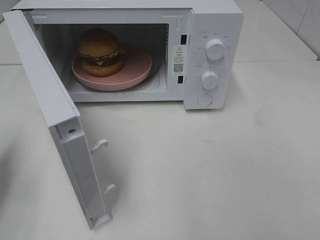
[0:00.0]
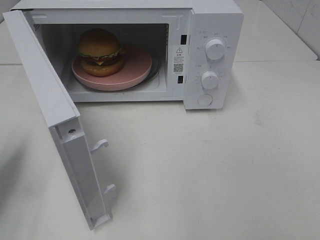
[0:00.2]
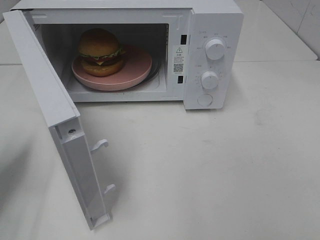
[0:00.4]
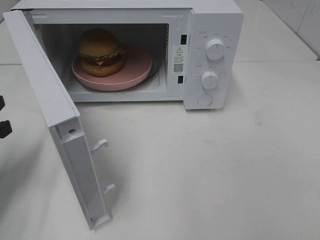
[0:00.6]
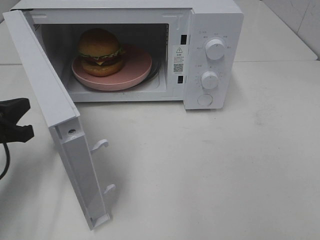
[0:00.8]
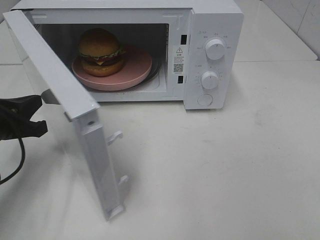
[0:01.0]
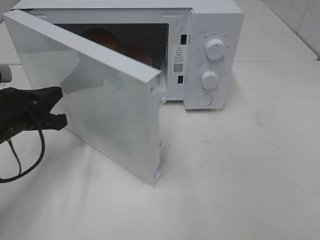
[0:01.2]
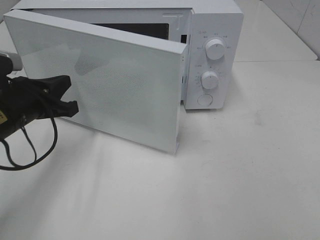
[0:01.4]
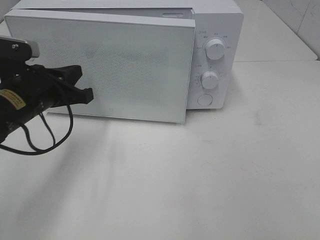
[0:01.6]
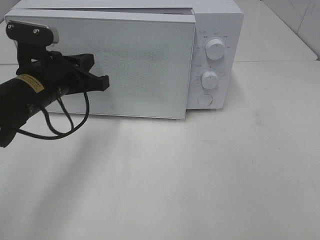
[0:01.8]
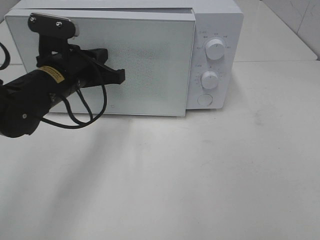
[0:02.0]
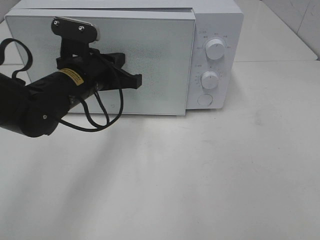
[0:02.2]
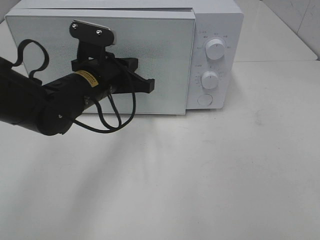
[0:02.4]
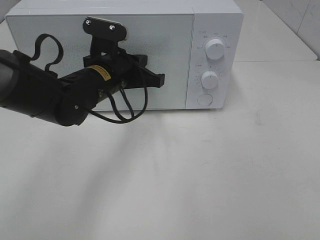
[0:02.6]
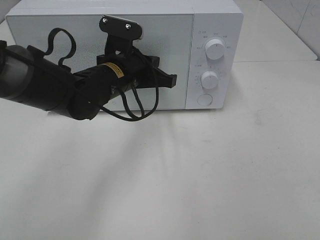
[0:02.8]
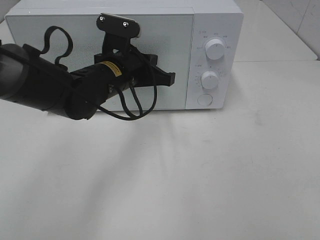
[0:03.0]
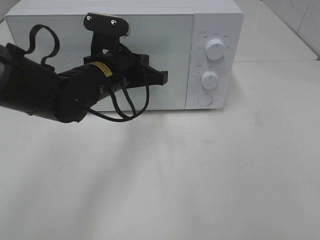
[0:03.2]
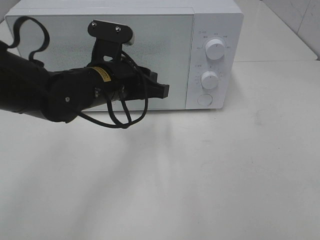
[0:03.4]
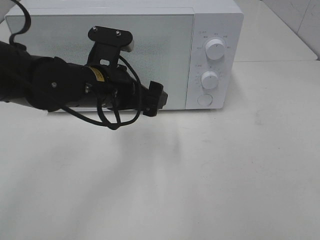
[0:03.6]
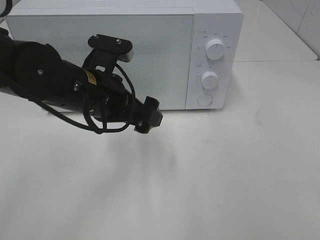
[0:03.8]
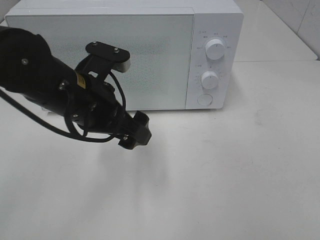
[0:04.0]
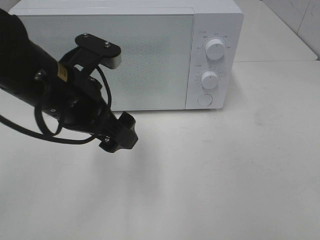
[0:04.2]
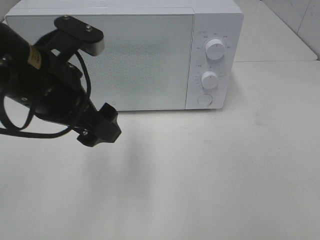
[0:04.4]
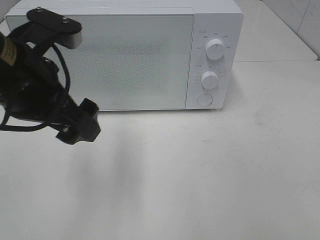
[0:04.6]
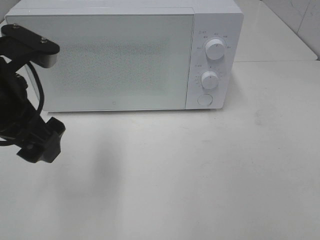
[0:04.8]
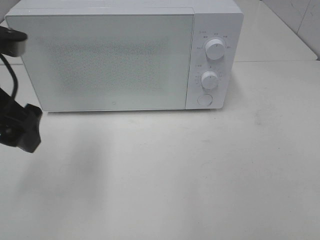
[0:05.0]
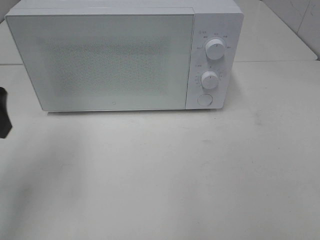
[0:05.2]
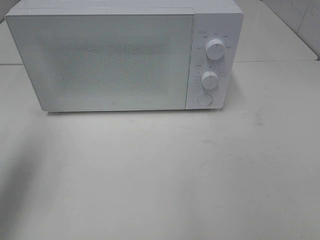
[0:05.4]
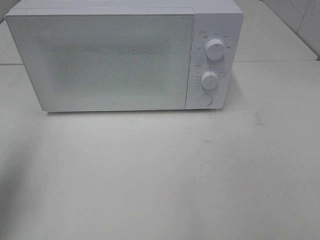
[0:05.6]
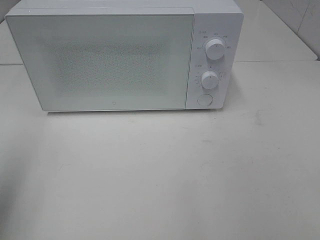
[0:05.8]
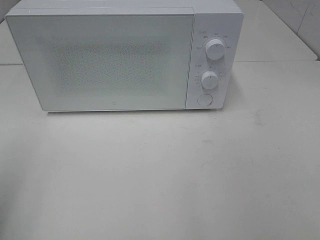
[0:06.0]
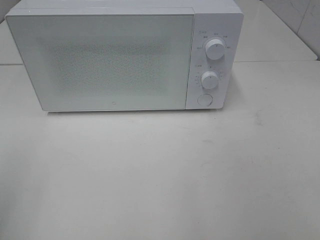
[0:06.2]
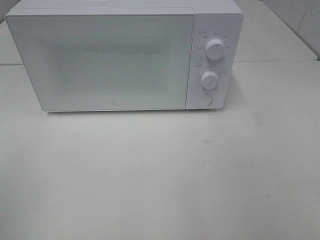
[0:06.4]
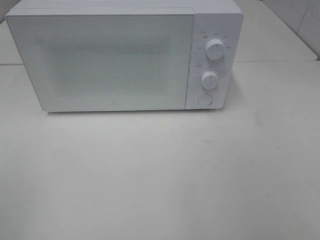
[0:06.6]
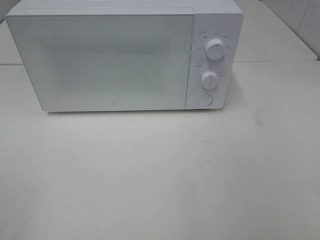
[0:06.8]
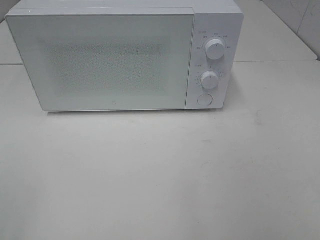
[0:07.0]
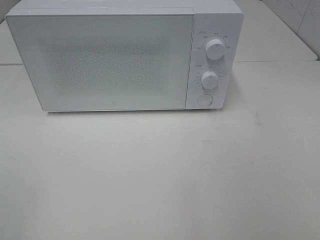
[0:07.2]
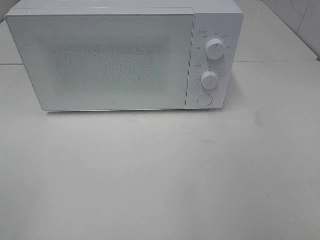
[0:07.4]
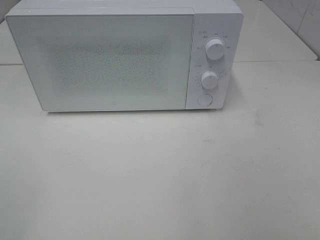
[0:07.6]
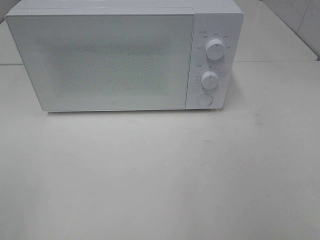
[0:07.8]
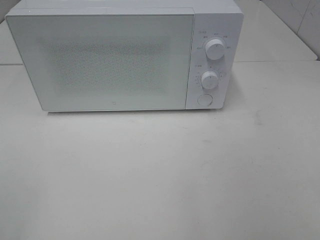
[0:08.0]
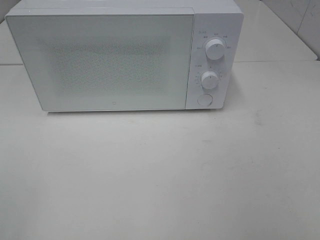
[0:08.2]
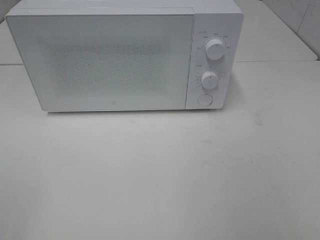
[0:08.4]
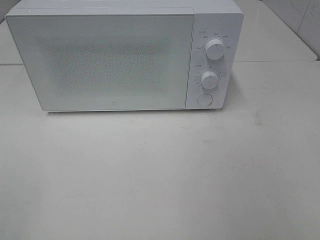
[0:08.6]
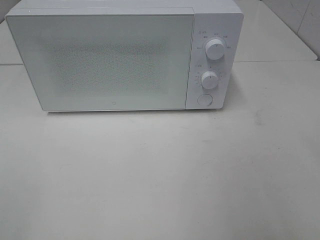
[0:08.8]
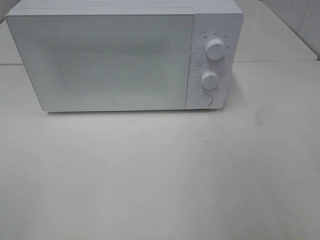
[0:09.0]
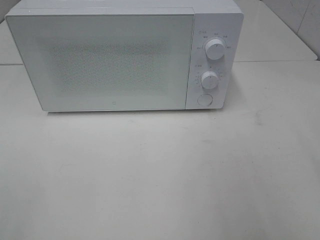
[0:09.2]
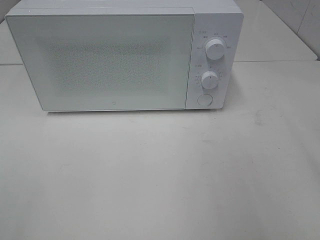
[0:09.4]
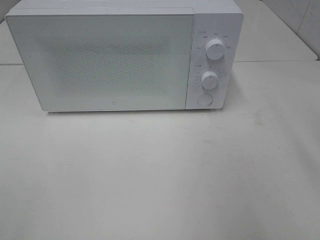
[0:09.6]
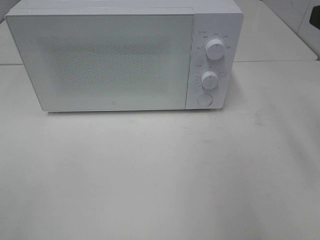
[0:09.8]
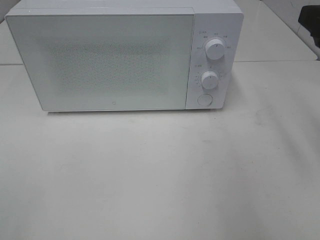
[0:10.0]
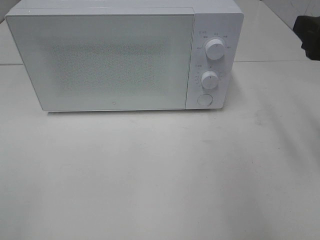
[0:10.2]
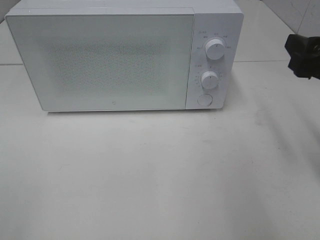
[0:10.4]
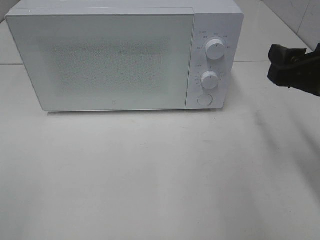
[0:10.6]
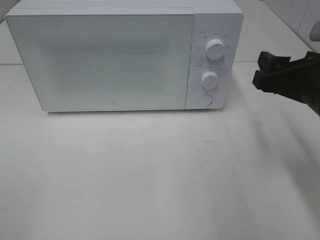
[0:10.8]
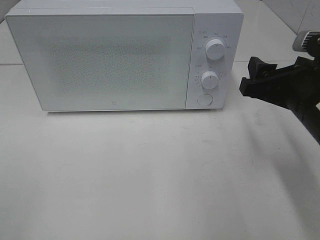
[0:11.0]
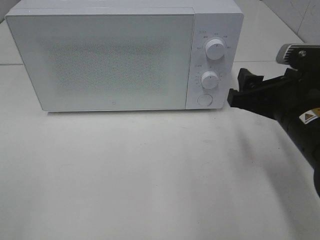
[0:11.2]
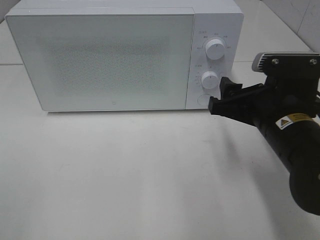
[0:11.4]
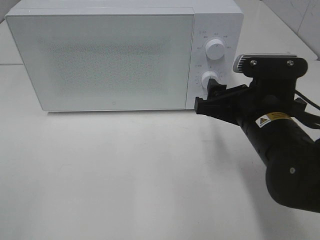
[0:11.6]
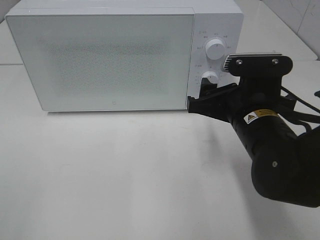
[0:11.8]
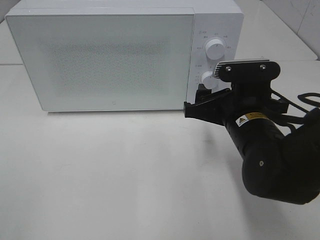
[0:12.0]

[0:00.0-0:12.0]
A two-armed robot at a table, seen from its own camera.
Task of the whole recording: Heat the burger.
Step, 0:00.0 to 0:04.0: Left hand: close the microwave door.
0:00.0 to 0:01.6: The left gripper is displaced to the right and forward by some 15 cm.
0:01.6 to 0:03.0: The left gripper goes roughly 15 cm to the right and forward.
0:03.0 to 0:04.4: The left gripper moves backward, upward and to the left, approximately 15 cm, and opens its fingers.
0:04.4 to 0:06.0: The left gripper moves to the left and backward, roughly 20 cm.
0:09.0 to 0:10.4: The right gripper heads forward and downward, covering some 15 cm.
0:10.4 to 0:12.0: The right gripper shifts about 15 cm to the left and downward.

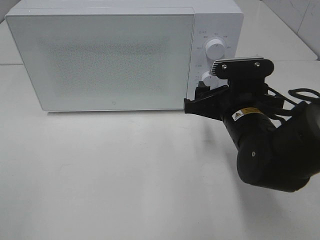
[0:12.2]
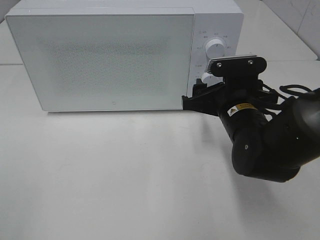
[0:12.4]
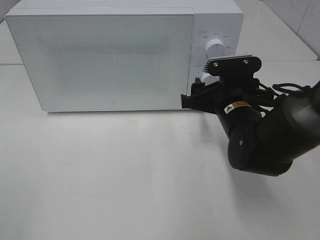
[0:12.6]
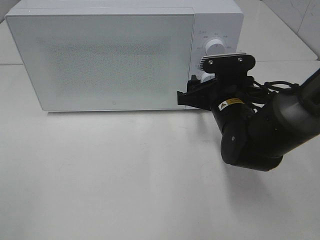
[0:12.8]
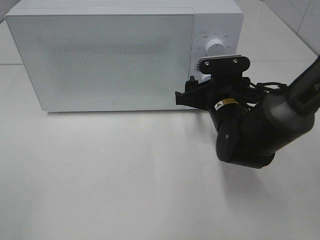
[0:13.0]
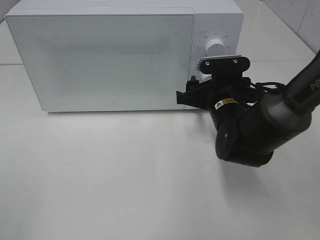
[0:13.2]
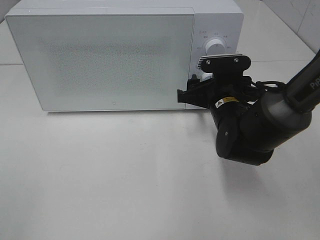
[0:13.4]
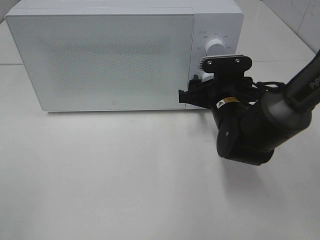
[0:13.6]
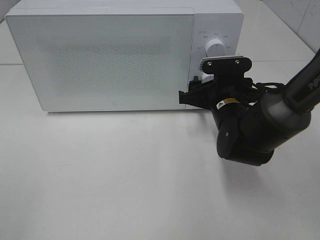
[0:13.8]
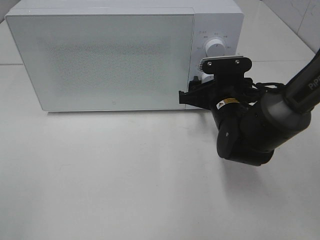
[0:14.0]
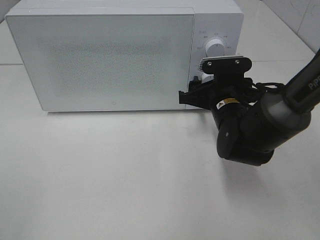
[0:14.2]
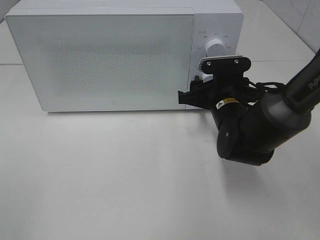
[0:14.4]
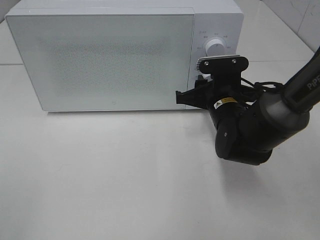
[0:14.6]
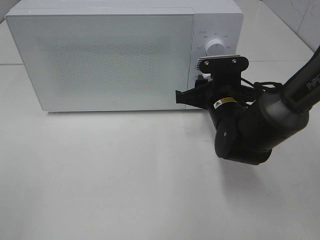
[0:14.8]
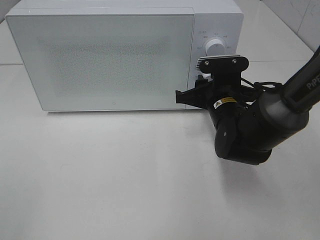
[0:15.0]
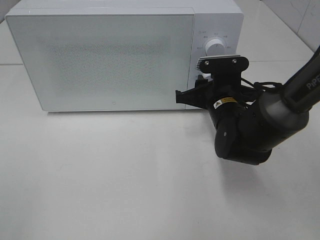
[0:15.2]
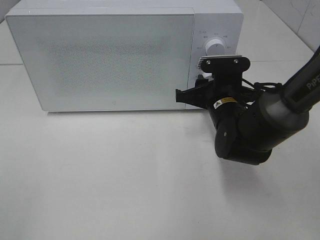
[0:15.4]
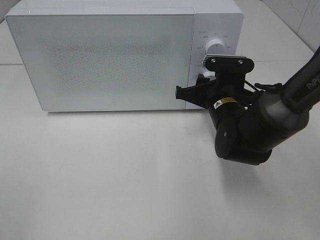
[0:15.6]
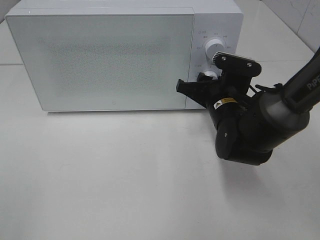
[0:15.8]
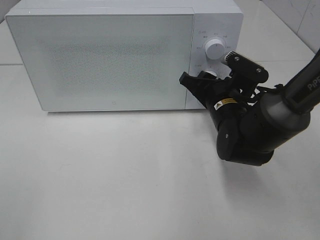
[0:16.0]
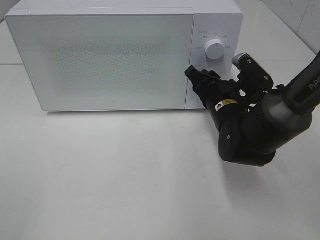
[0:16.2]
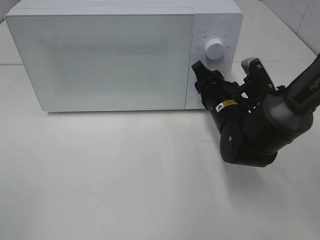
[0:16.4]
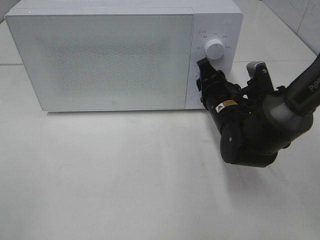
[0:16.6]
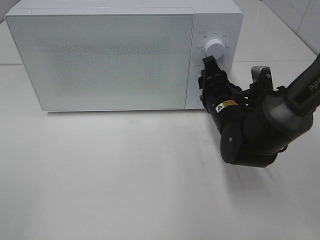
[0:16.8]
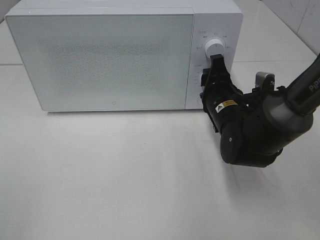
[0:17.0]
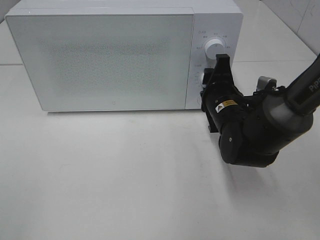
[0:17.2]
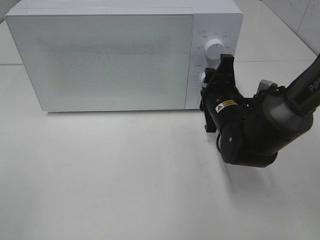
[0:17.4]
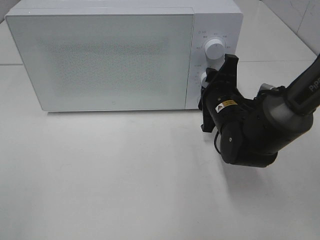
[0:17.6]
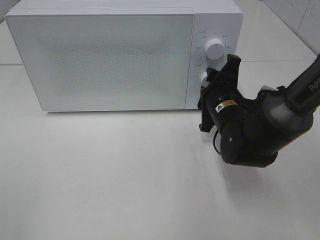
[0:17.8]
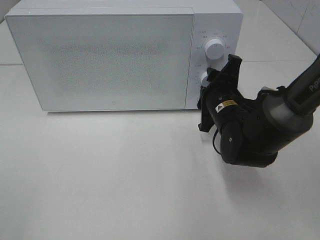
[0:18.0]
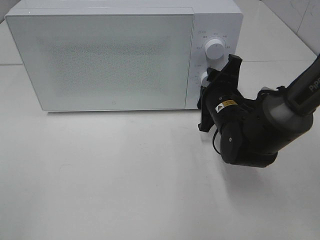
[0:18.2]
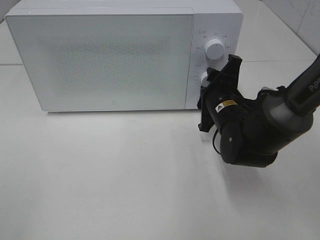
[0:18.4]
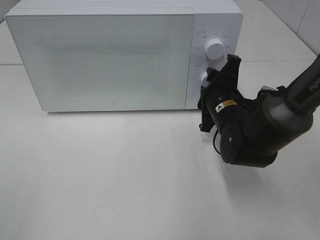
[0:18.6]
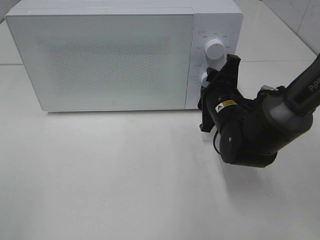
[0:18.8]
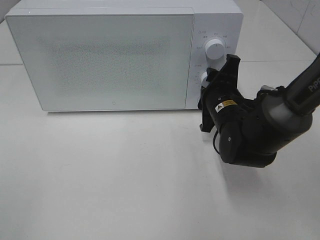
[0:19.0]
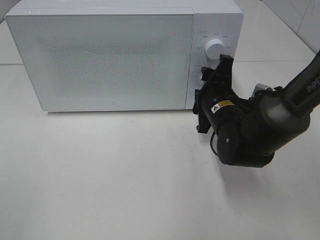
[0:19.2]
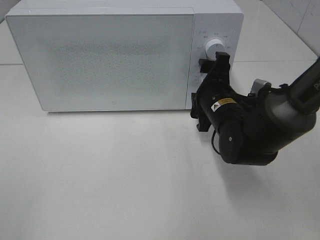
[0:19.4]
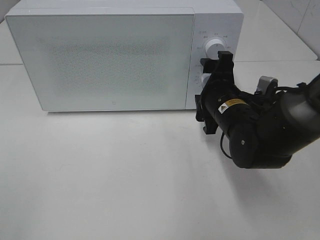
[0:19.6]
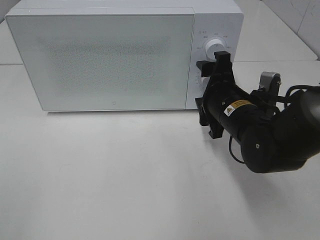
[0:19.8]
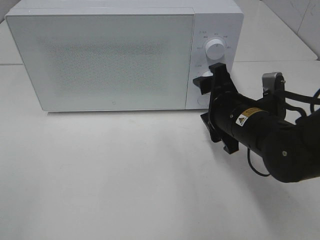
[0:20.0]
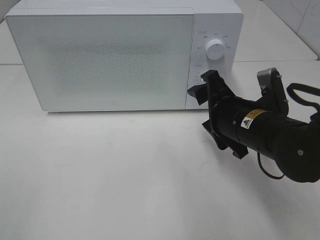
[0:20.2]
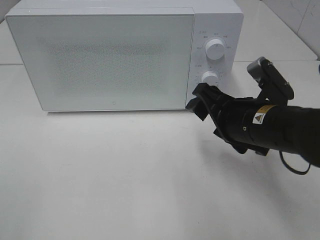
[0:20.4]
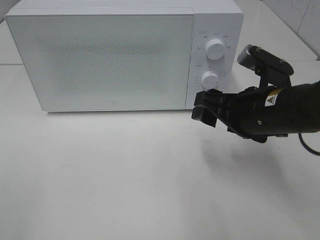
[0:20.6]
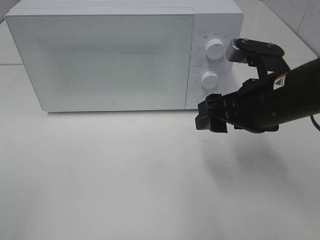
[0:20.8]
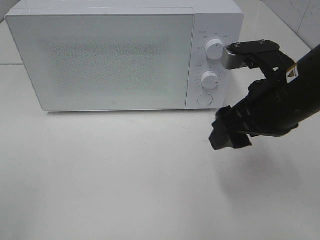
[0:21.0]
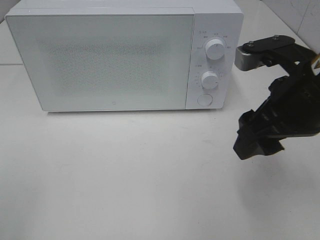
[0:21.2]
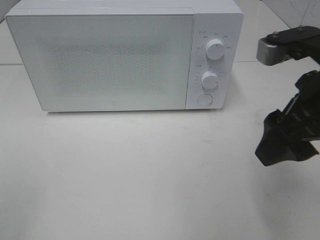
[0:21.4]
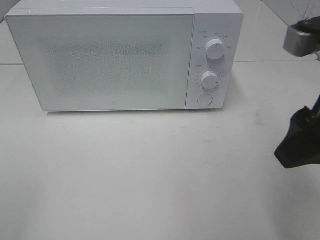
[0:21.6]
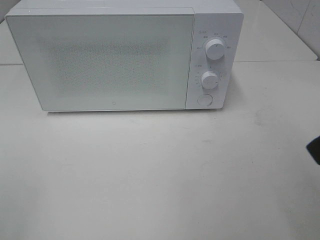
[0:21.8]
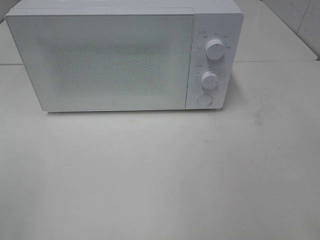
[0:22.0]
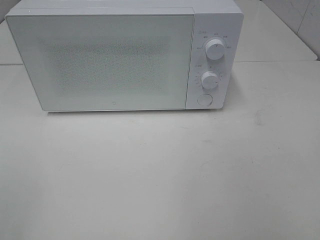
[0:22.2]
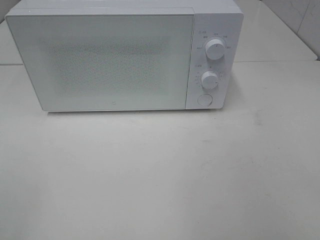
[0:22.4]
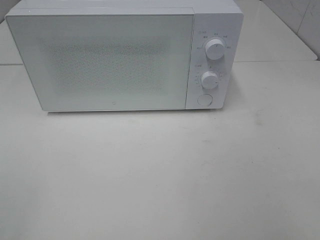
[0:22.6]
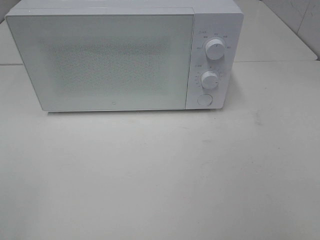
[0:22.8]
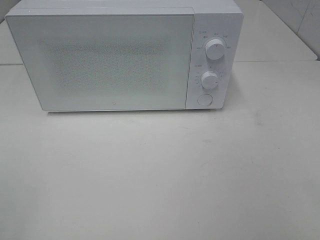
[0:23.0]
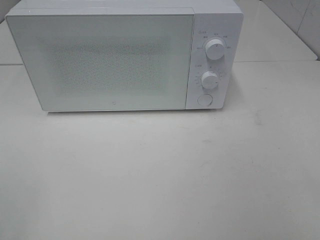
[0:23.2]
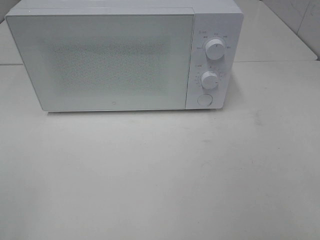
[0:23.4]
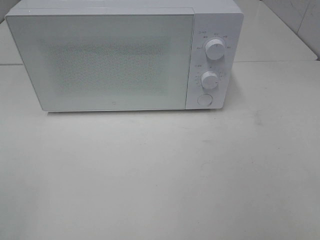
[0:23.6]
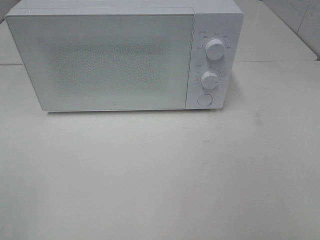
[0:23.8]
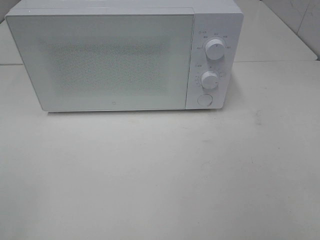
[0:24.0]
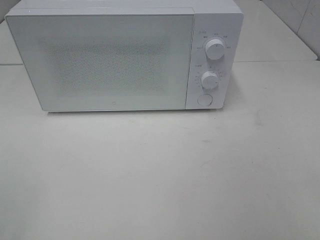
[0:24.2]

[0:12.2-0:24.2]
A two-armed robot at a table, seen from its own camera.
Task of the whole recording: Heat the burger.
Step, 0:12.2 to 0:19.2: Right hand: twist timer button.
0:12.2 to 0:13.8: The right gripper goes roughly 5 cm forward.
0:13.8 to 0:15.2: The right gripper closes up.
0:18.2 to 0:19.8: The right gripper opens.
0:19.8 to 0:21.2: The right gripper is displaced upward and backward by some 15 cm.
0:21.2 to 0:22.6: The right gripper heads backward and to the right, covering roughly 25 cm.
